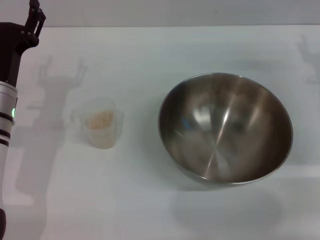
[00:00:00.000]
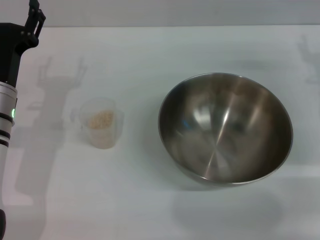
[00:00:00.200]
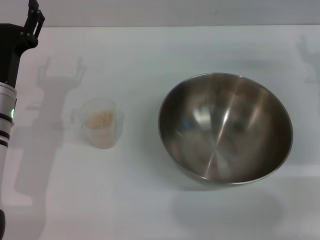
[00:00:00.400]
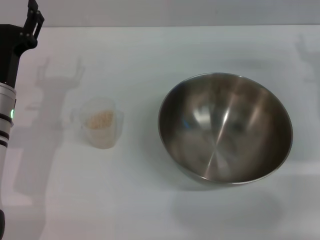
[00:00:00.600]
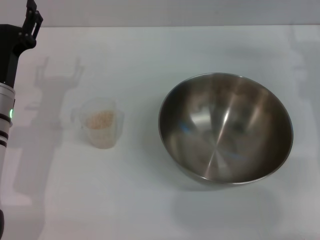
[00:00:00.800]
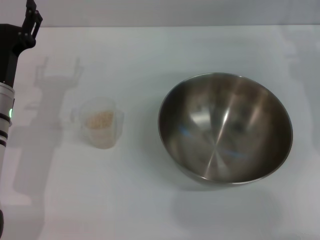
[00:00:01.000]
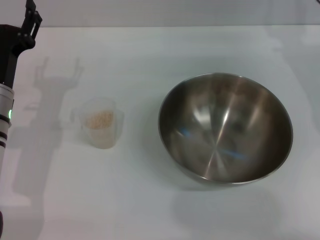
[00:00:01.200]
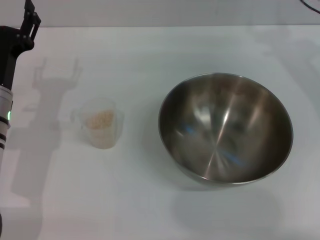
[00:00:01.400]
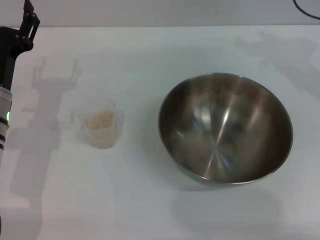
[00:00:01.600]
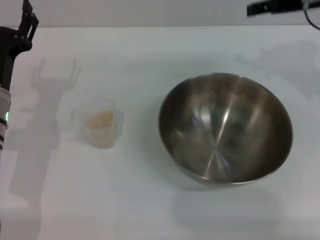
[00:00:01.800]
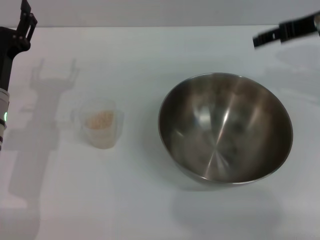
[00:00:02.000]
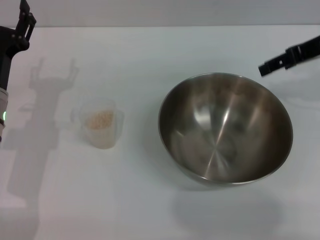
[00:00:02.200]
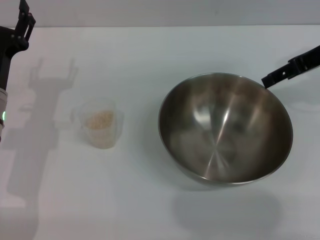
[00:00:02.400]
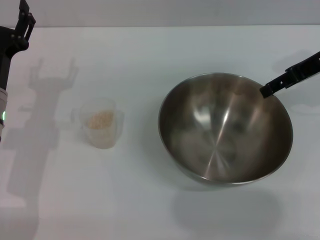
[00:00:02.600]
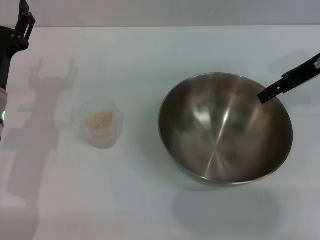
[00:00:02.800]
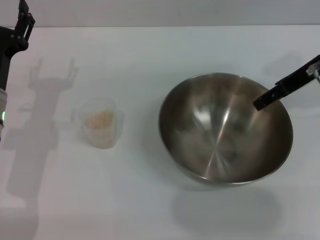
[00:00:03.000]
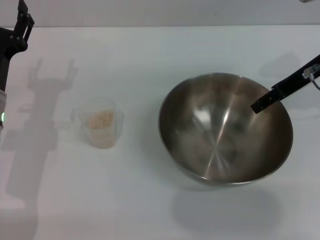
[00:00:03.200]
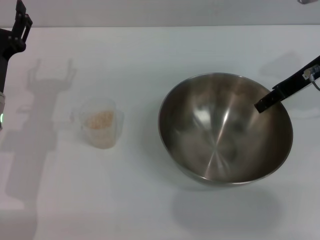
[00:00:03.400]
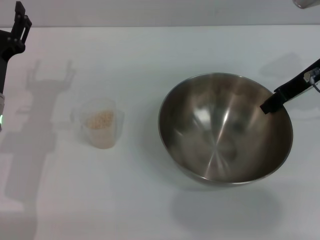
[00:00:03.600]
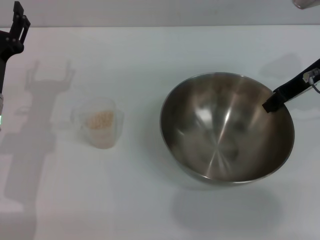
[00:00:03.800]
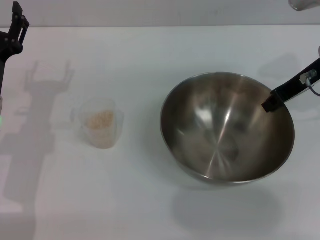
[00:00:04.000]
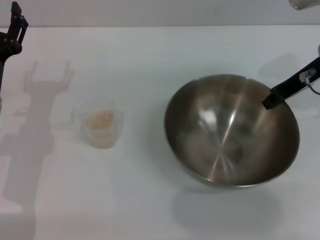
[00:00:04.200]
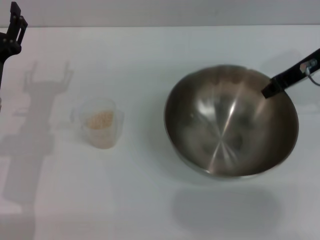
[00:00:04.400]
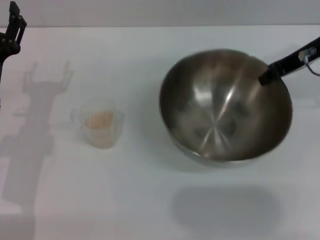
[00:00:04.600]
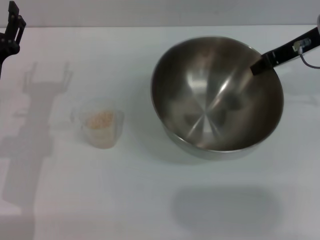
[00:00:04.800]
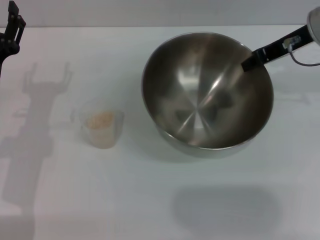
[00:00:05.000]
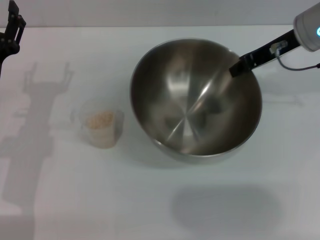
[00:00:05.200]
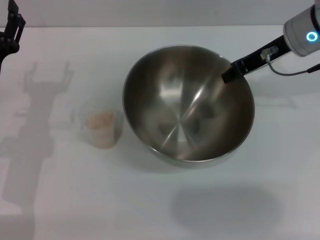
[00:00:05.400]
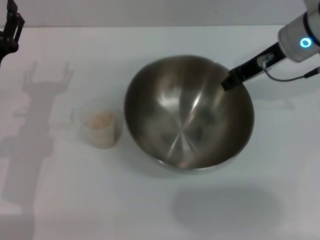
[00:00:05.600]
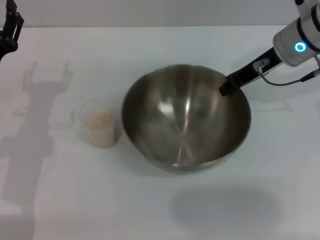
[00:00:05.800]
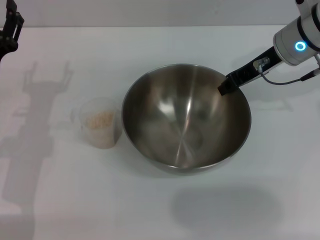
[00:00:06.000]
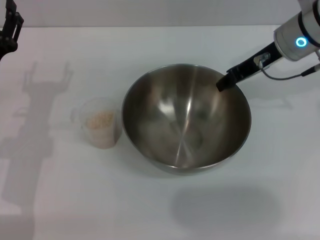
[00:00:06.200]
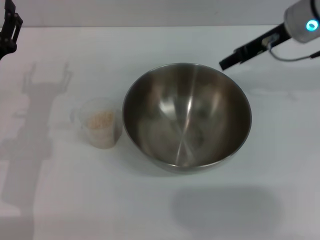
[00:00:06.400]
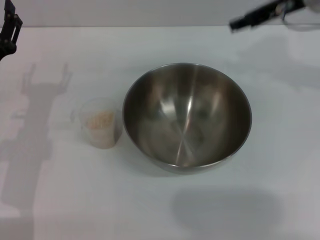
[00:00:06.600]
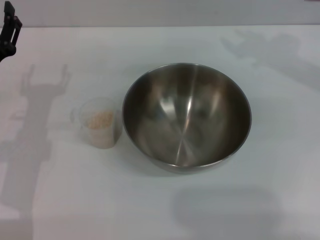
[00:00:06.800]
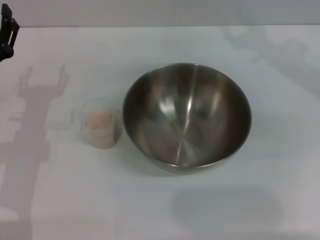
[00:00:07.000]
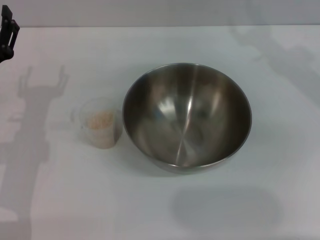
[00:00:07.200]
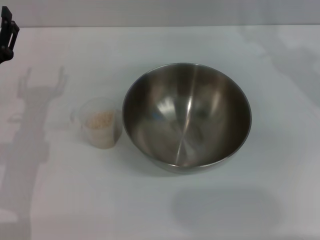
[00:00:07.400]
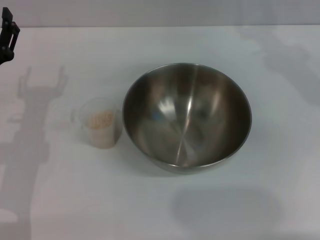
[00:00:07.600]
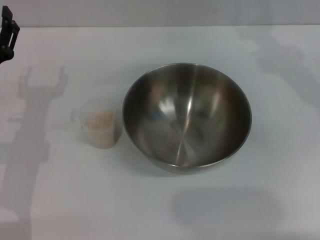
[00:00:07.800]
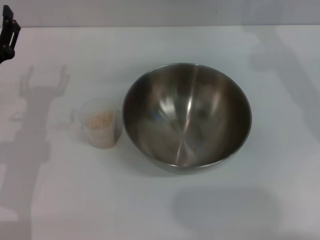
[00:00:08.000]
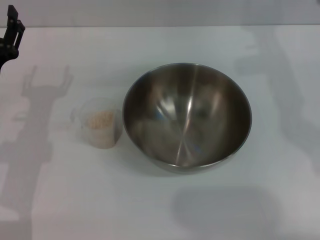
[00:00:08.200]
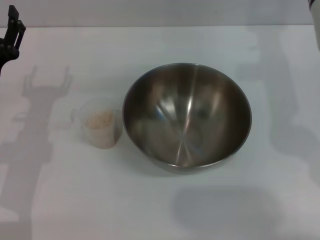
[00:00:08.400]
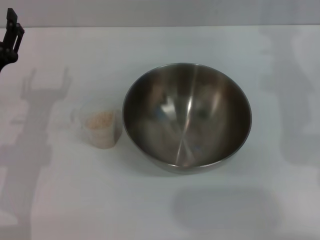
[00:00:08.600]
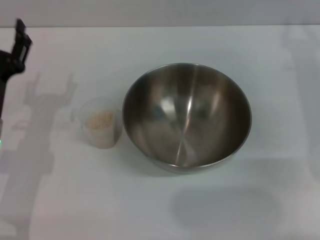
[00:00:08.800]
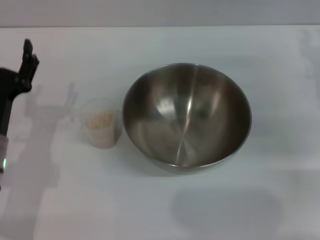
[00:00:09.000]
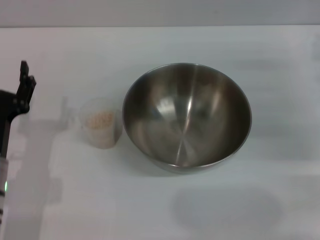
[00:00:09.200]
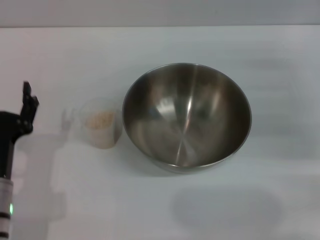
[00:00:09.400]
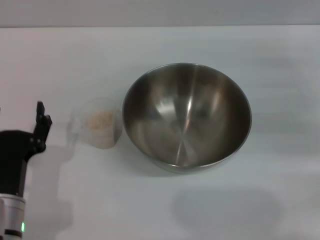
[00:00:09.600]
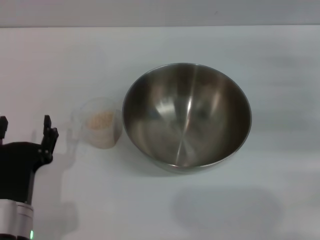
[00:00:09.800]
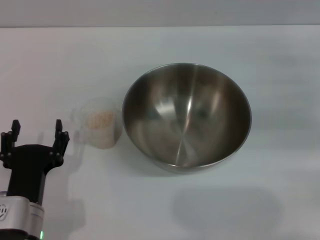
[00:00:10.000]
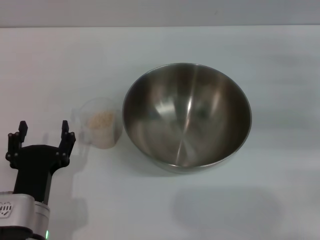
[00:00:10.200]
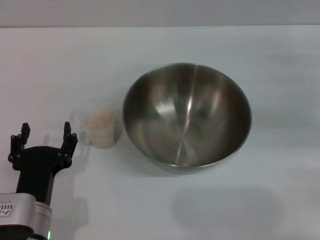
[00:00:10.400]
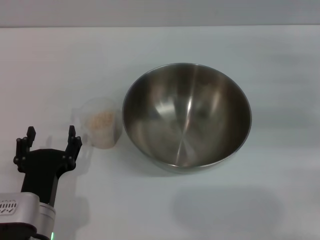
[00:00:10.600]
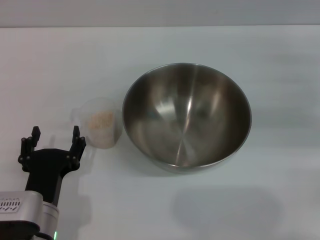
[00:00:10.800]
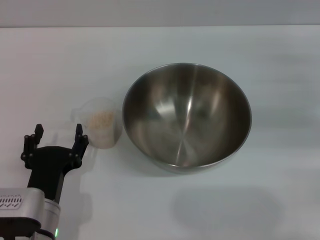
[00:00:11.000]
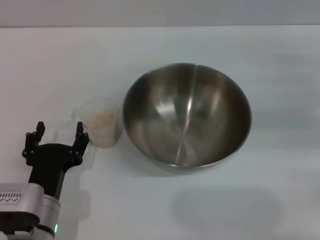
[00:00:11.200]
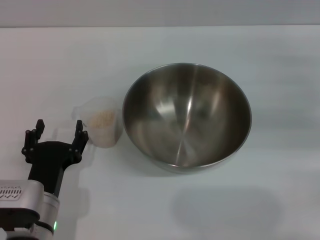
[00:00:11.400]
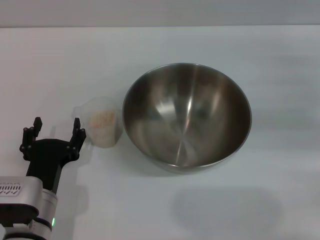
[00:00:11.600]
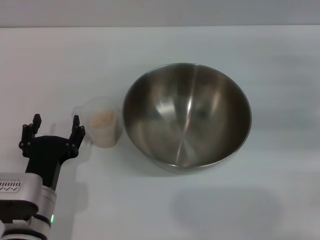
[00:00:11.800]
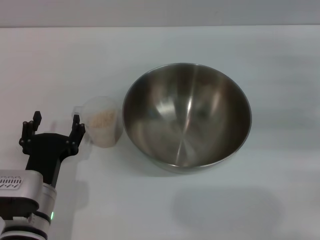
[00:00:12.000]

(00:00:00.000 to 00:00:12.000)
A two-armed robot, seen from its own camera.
Task of the whole recording: Place the bowl in the middle of the table with one hand and pour the rice from the grain cup into it with the other hand.
Step, 00:00:00.000 - 00:00:05.200: Pick up the bowl with the right gripper.
Step, 00:00:05.600 - 00:00:06.400: Place the bowl in the center of view with the right gripper.
00:00:00.000 - 00:00:01.600: The right gripper is displaced upward, forward and to the left by approximately 15 cm.
00:00:03.000 - 00:00:04.400: The right gripper closes.
00:00:04.400 - 00:00:06.000: The right gripper shifts some 5 cm to the left.
00:00:06.000 - 00:00:07.600: The right gripper opens up.
00:00:07.600 - 00:00:09.000: The right gripper goes about 15 cm downward, backward and to the right.
00:00:09.000 - 00:00:10.400: The left gripper goes approximately 10 cm backward and to the right.
00:00:10.400 - 00:00:12.000: There are only small adjustments of the grippers.

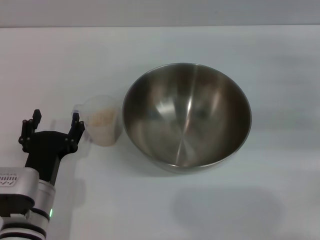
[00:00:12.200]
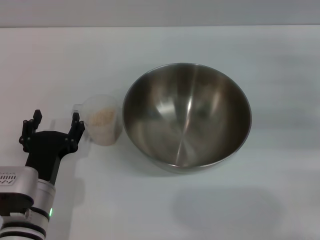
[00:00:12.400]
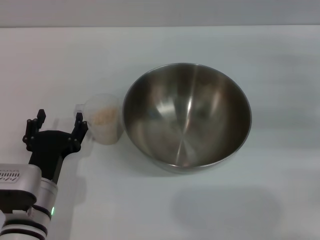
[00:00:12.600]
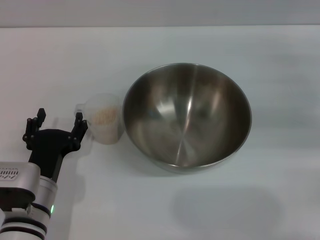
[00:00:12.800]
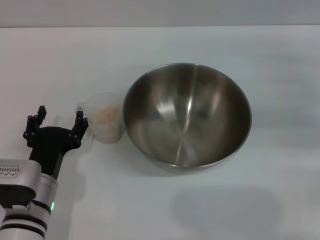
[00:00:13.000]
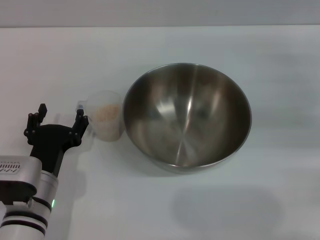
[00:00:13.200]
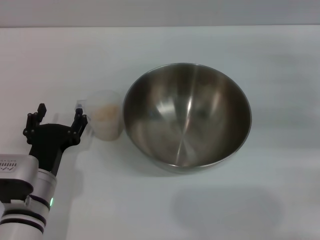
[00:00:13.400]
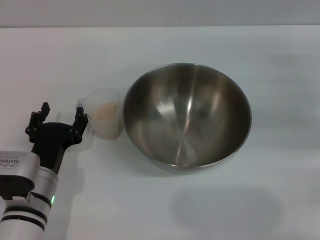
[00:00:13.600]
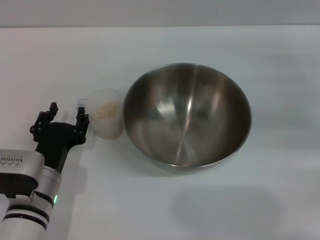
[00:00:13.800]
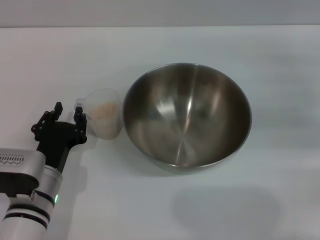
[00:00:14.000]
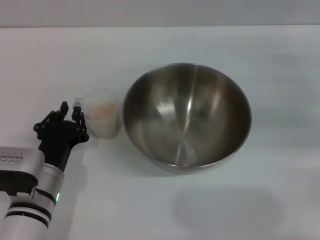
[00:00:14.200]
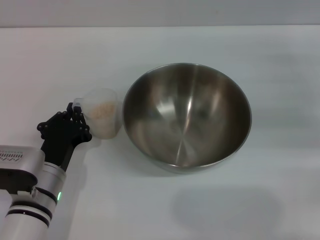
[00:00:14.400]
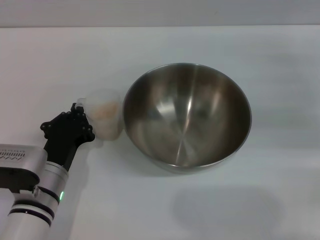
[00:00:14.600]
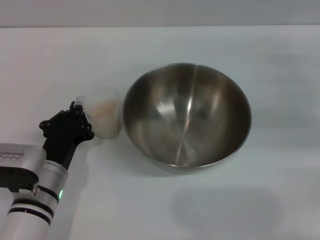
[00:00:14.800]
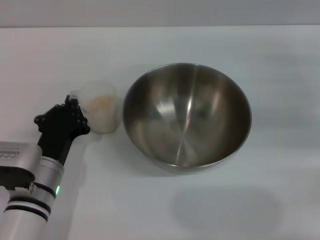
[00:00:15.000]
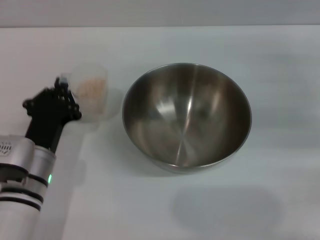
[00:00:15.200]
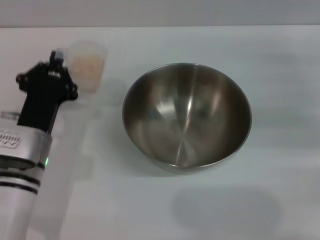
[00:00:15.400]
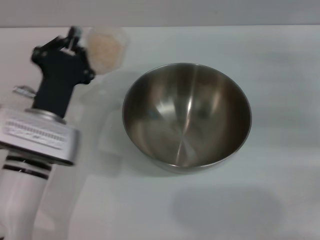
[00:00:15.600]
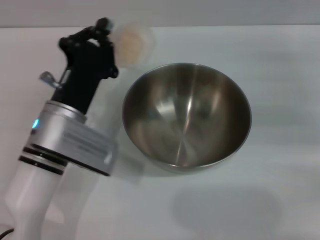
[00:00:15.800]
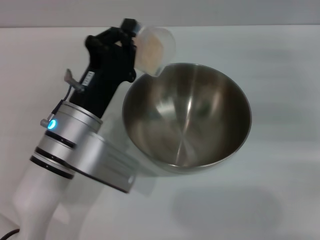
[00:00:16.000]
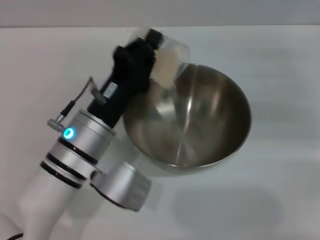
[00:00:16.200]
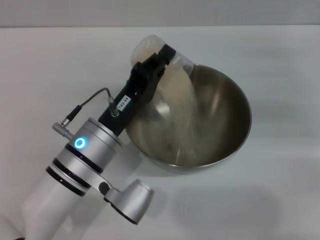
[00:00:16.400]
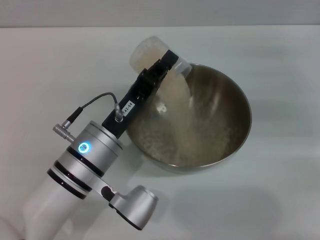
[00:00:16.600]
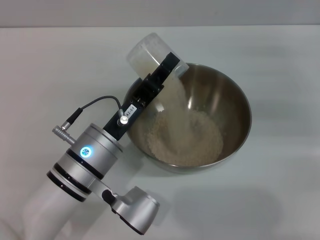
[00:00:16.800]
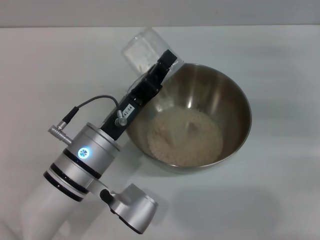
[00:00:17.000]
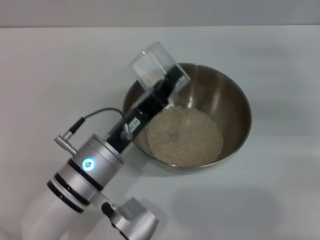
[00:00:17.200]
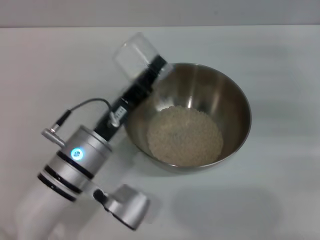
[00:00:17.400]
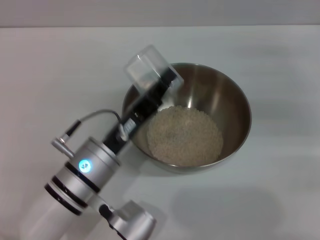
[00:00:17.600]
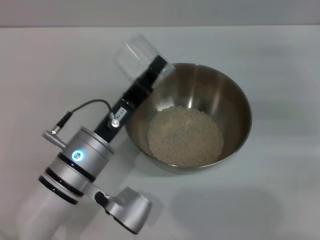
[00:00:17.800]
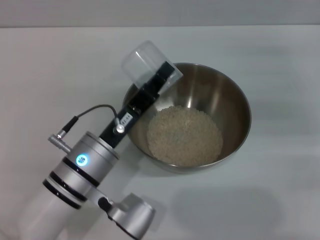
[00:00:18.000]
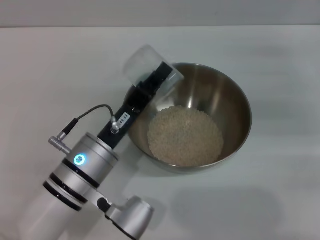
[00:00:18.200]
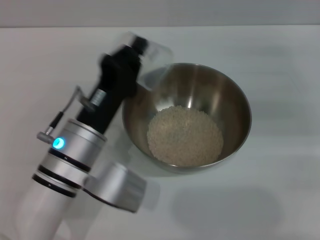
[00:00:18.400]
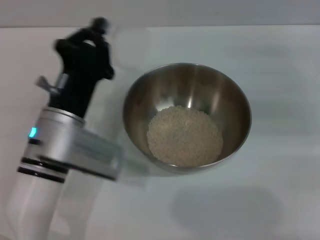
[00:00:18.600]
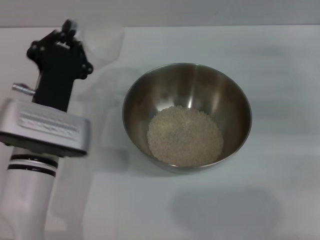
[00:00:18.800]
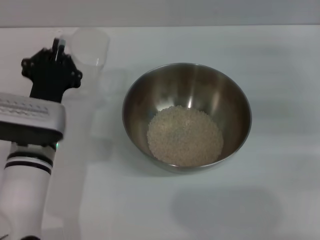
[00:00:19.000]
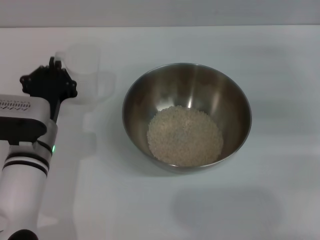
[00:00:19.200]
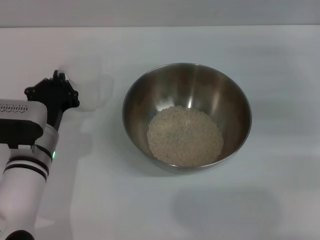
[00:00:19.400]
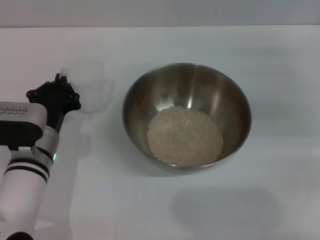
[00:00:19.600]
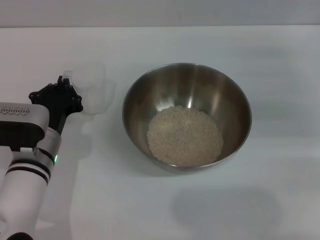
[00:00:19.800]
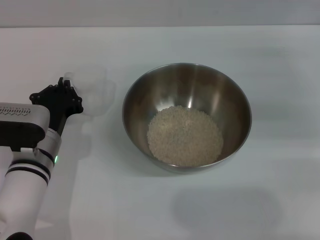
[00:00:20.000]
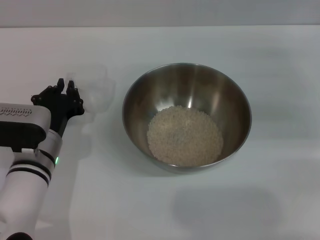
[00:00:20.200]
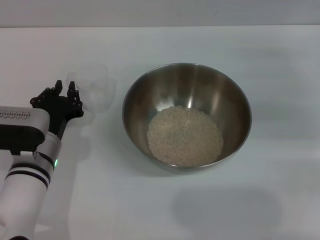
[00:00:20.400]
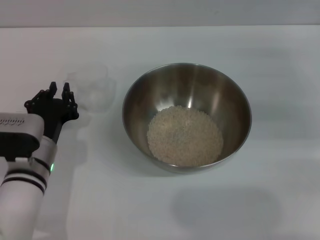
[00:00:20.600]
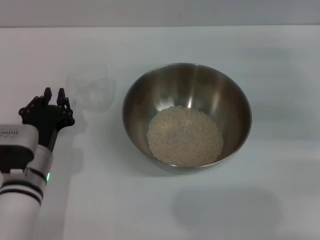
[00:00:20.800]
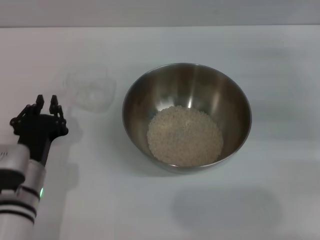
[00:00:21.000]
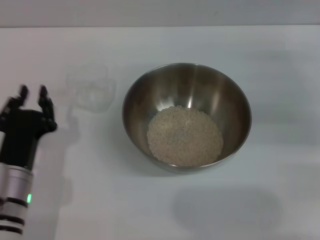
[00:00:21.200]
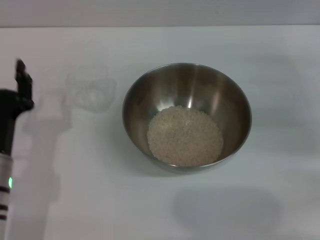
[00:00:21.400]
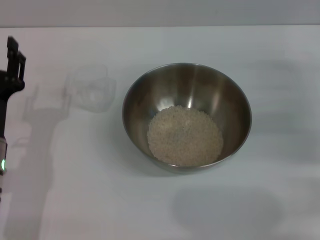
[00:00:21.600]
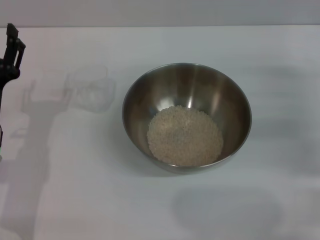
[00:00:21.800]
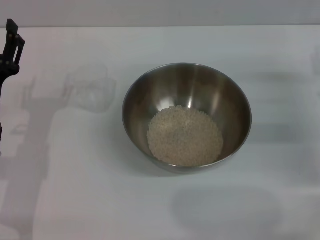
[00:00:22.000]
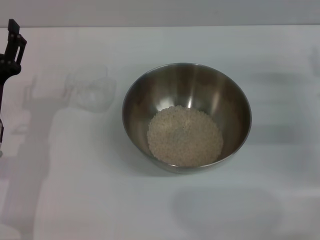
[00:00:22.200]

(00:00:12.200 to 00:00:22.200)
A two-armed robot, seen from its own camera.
Task of the whole recording: Place the bowl in the middle of the table with one hand and pour the rice from the grain cup into it with the other hand.
Step, 00:00:12.200 - 00:00:15.200: Pick up the cup with rice in it with the left gripper.
Step, 00:00:15.400 - 00:00:18.400: Pour the rice from the cup into the bowl with the left gripper.
Step, 00:00:18.800 - 00:00:21.000: Place the cup on the table with the left gripper.
00:00:12.200 - 00:00:13.600: The grippers move only a little.
00:00:13.600 - 00:00:15.000: The left gripper closes.
00:00:15.000 - 00:00:16.400: The left gripper shifts approximately 10 cm to the right and upward.
00:00:18.000 - 00:00:19.400: The left gripper is displaced to the left by some 5 cm.
00:00:19.400 - 00:00:20.800: The grippers move only a little.
00:00:20.800 - 00:00:22.200: The left gripper ends up some 5 cm from where it was, and opens.
